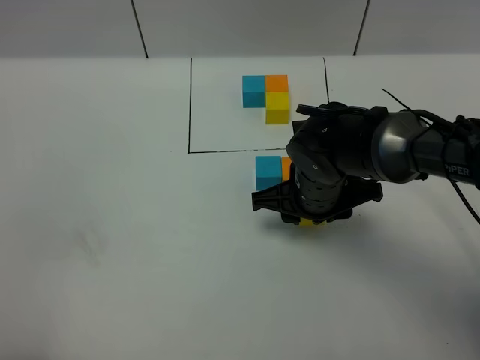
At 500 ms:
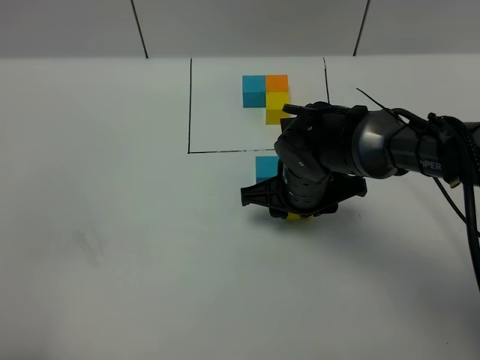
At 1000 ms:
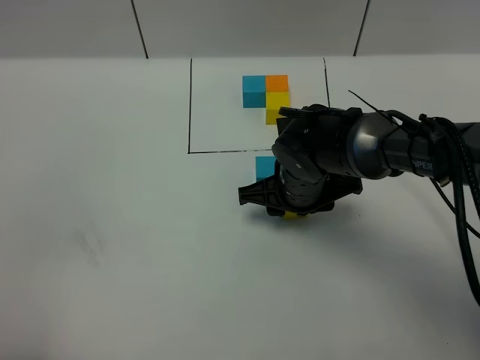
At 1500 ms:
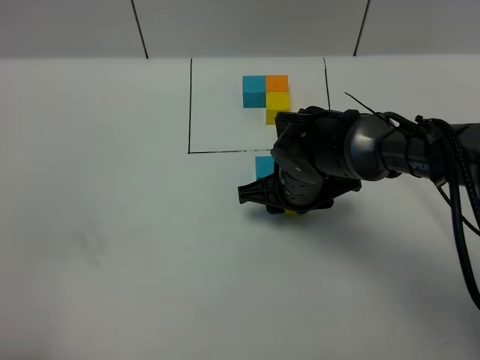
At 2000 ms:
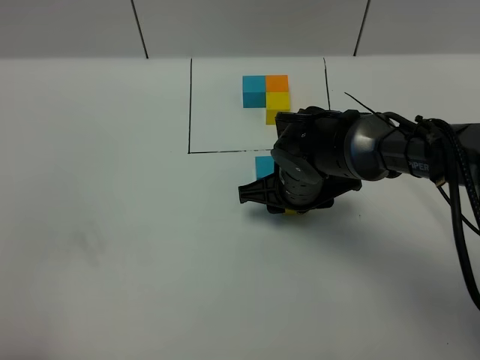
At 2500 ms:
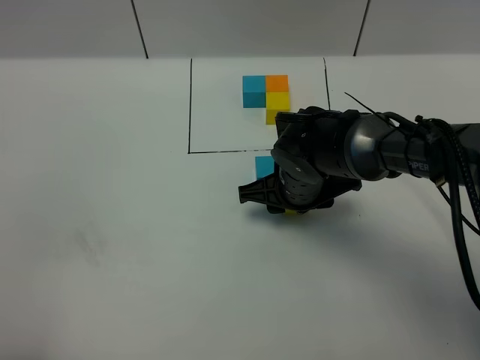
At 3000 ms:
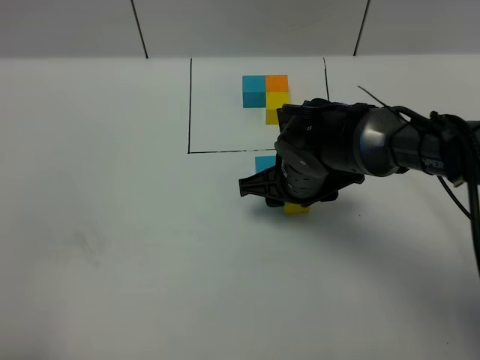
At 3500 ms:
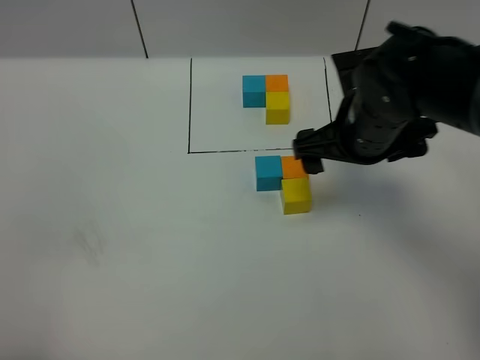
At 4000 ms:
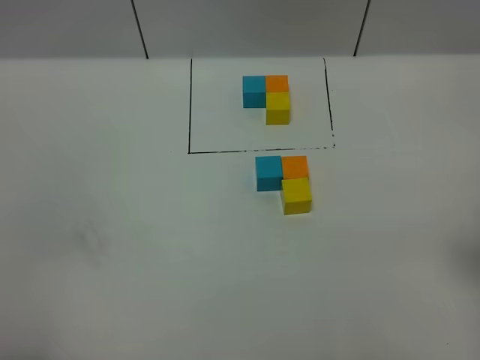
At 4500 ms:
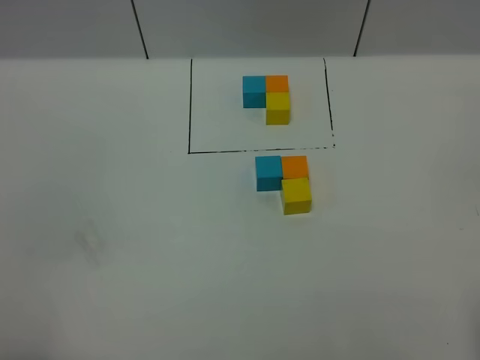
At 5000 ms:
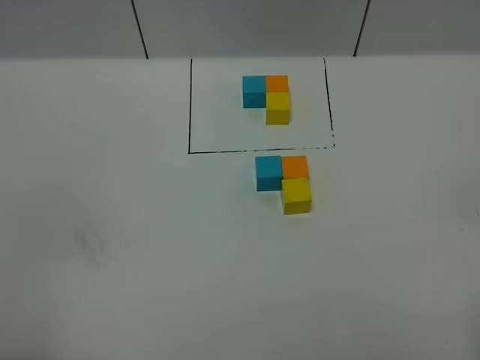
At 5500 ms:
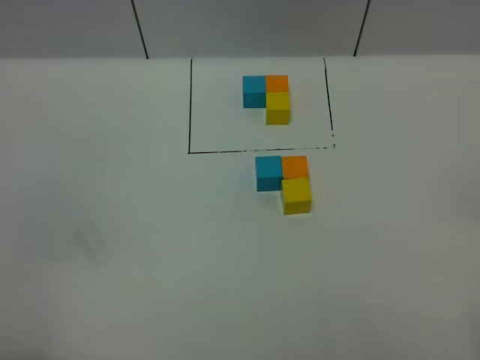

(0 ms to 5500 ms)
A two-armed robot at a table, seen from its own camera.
Task of the whole recording: According to the building block template in front, assemble the scattered blocks together.
Step, 0 ms - 2500 ms: Put the yellow build block on the behind of the orange build block.
0 ms - 2000 ms: The grippers move only a little.
2000 ms - 3500 ms: The right gripper is displaced upward and to the right by some 15 cm, and opens its fingers.
3500 ms - 5500 ms: The right gripper goes about 35 cm backward and to the right.
